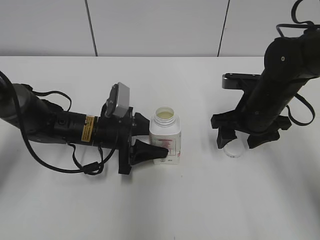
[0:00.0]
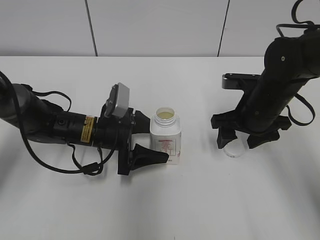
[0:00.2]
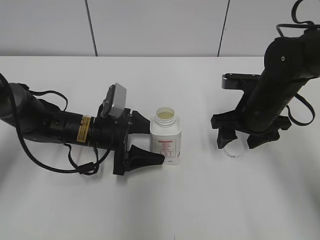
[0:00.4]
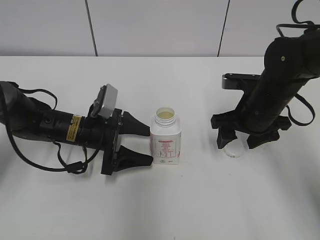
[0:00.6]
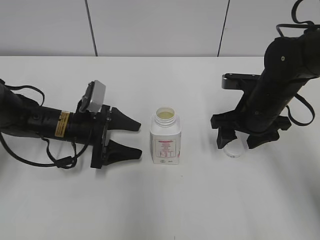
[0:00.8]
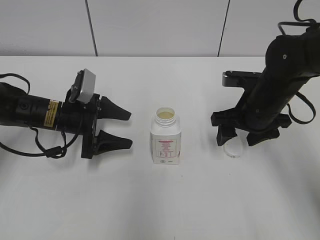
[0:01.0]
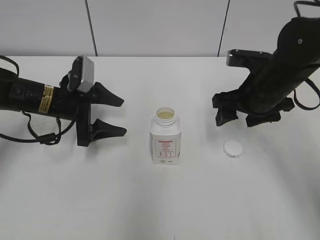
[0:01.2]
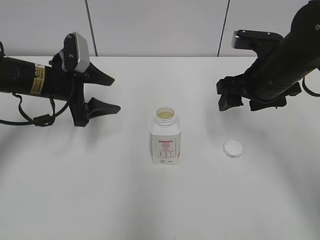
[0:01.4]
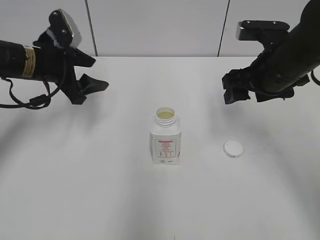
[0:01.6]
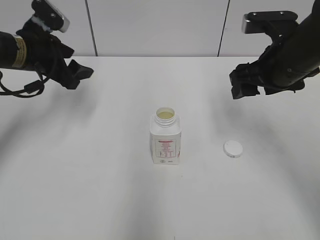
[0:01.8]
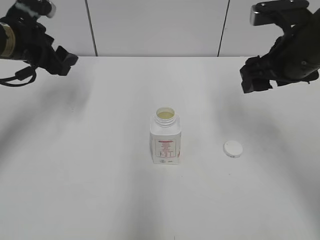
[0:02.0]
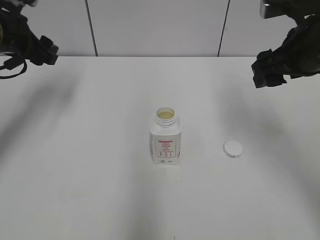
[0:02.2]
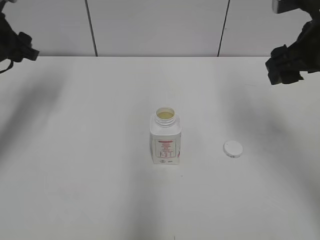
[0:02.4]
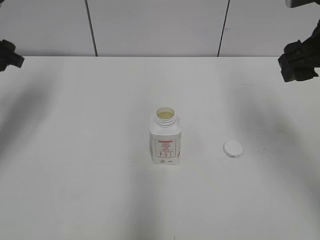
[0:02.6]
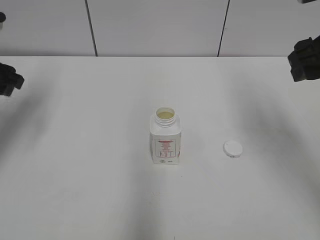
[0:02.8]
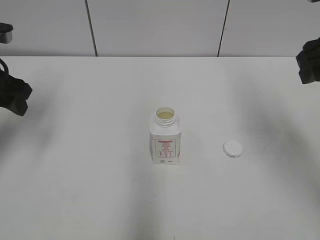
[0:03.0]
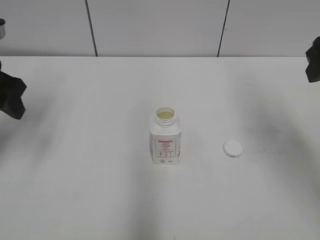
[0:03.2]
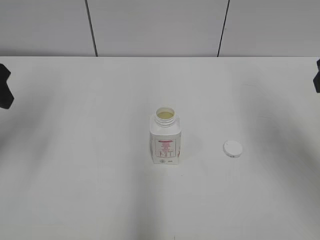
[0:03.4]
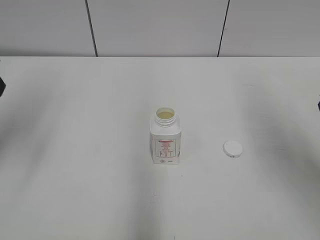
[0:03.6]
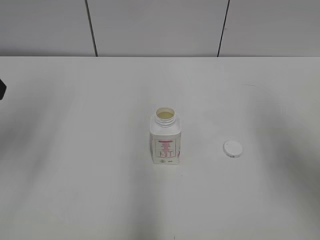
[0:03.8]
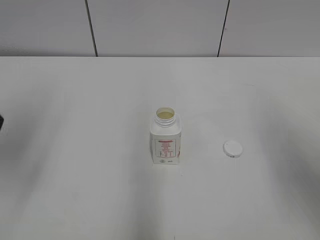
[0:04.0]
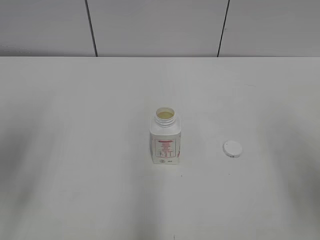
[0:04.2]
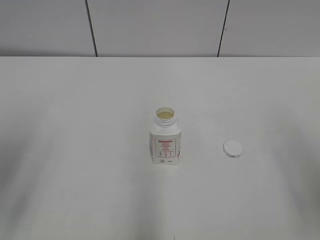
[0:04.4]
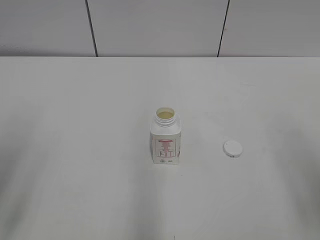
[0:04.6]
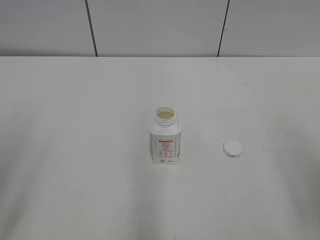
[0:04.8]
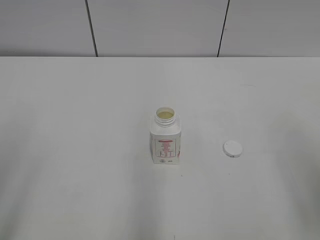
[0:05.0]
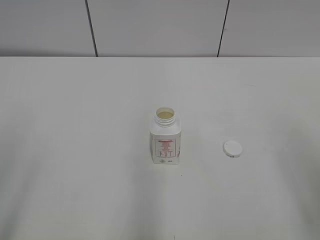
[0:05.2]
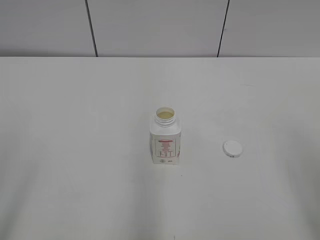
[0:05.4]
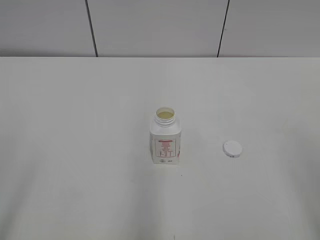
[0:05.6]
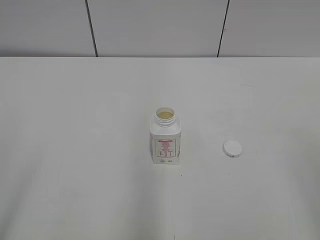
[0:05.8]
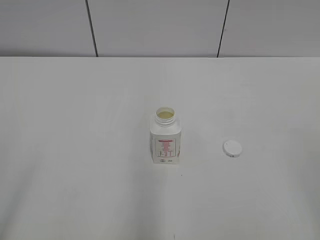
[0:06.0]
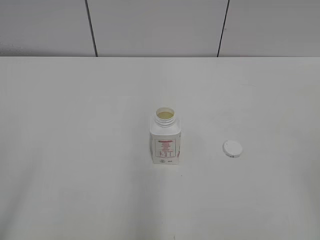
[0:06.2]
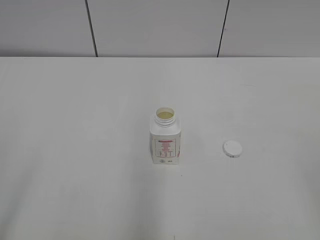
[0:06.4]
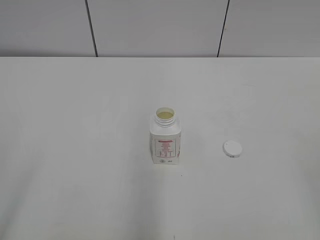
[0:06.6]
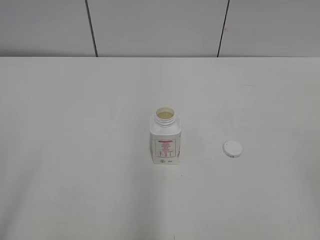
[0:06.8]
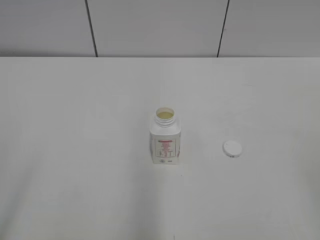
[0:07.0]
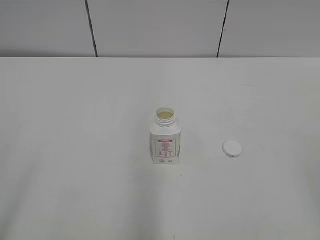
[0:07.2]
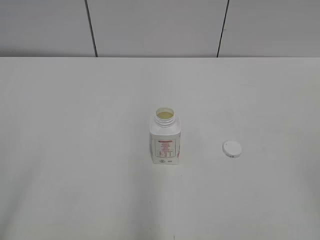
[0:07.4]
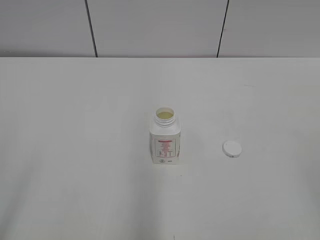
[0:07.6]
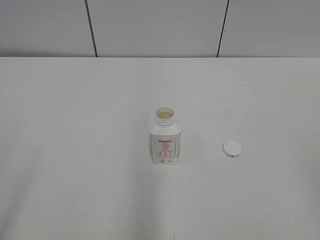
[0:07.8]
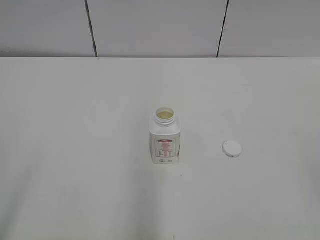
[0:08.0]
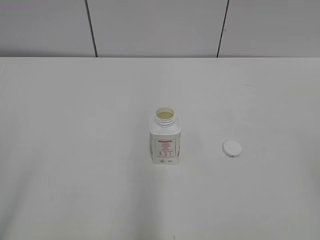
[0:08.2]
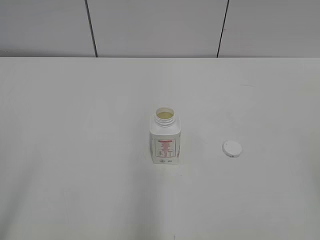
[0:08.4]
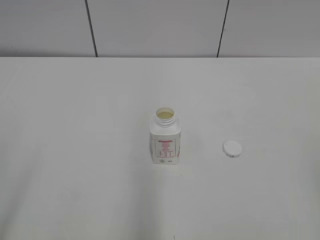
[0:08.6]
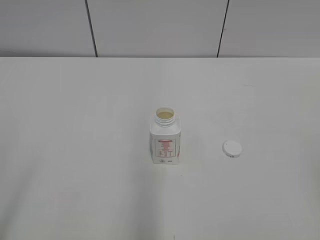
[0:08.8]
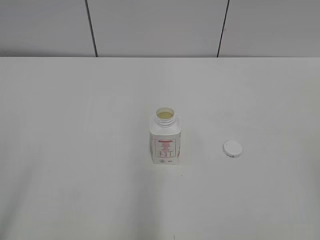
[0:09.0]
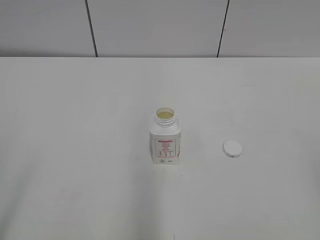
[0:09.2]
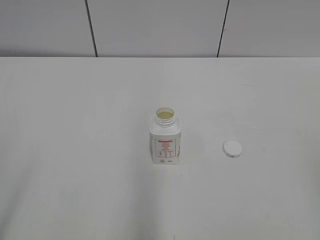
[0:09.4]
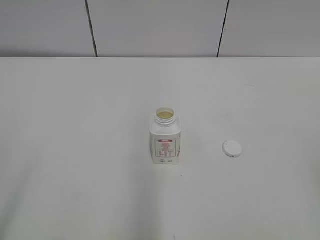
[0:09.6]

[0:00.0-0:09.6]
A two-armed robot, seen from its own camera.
Step, 0:00.0 to 0:00.4: Place the bottle on the table with the left gripper.
0:00.0 to 0:01.6: The left gripper heads upward and to the left, covering about 15 cm. Meanwhile the right gripper is displaced upward by about 10 cm.
0:01.6 to 0:03.2: The right gripper heads upward, backward and to the right, covering some 15 cm, while the left gripper travels backward, upward and to the left by about 15 cm.
0:03.2 to 0:04.8: The two grippers go about 15 cm backward.
0:04.8 to 0:06.4: The right gripper is displaced backward by about 10 cm.

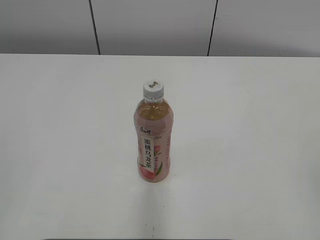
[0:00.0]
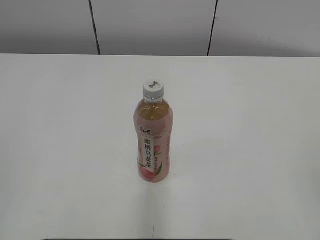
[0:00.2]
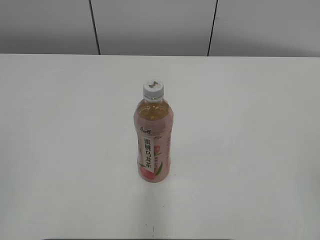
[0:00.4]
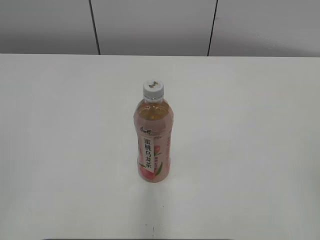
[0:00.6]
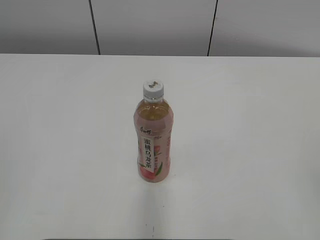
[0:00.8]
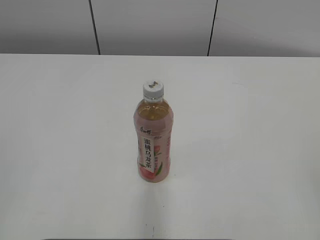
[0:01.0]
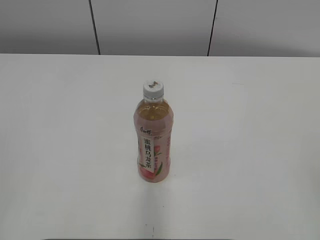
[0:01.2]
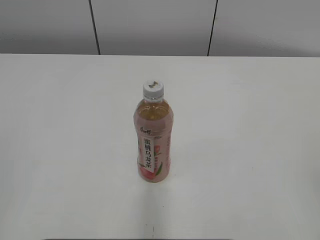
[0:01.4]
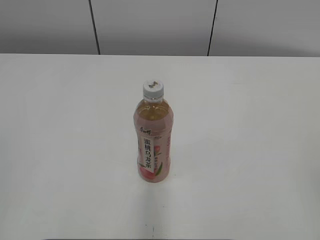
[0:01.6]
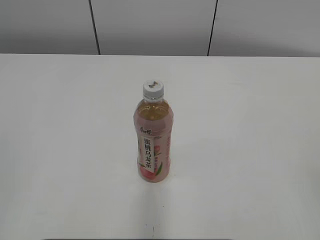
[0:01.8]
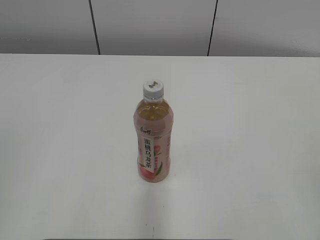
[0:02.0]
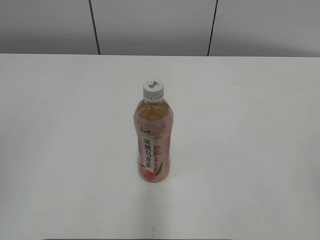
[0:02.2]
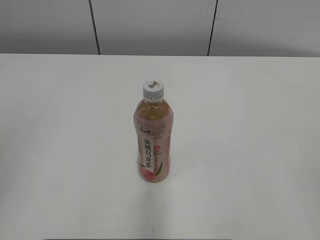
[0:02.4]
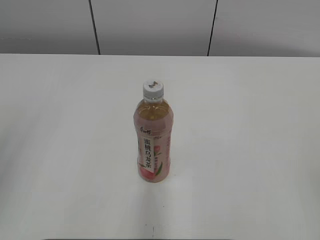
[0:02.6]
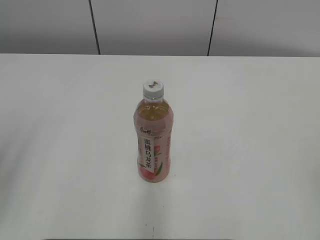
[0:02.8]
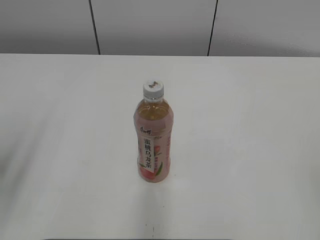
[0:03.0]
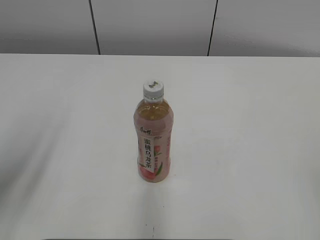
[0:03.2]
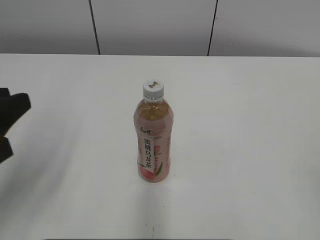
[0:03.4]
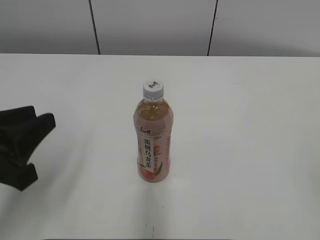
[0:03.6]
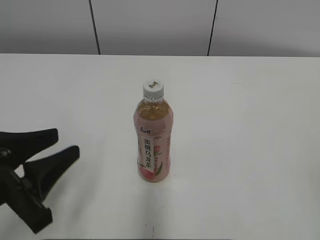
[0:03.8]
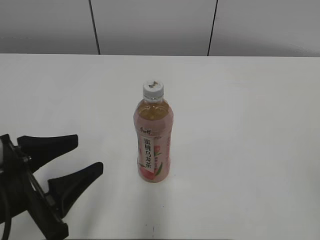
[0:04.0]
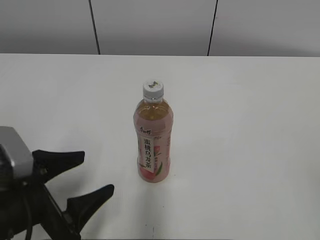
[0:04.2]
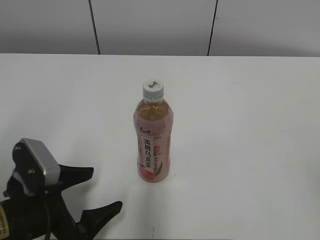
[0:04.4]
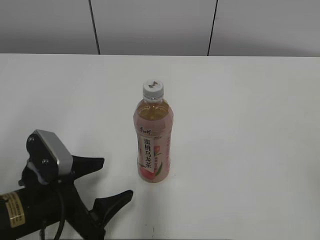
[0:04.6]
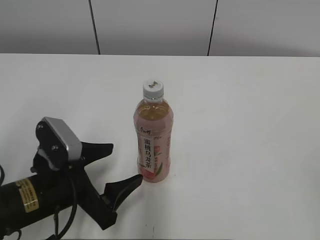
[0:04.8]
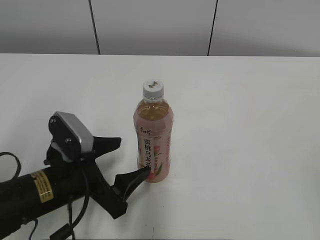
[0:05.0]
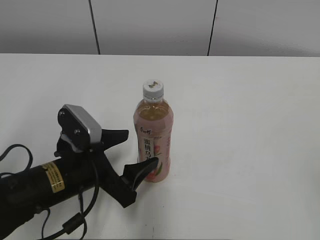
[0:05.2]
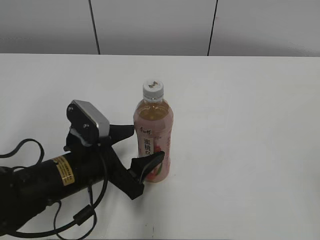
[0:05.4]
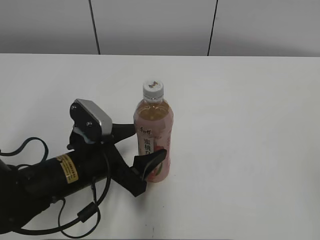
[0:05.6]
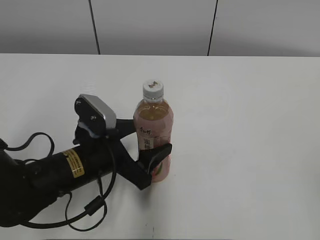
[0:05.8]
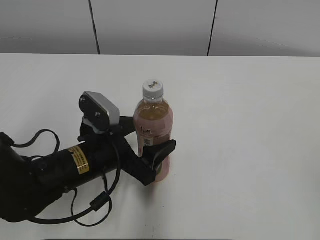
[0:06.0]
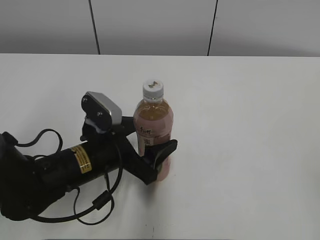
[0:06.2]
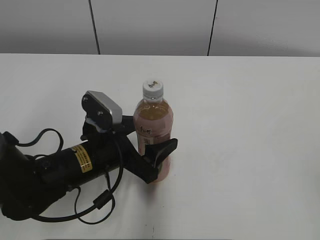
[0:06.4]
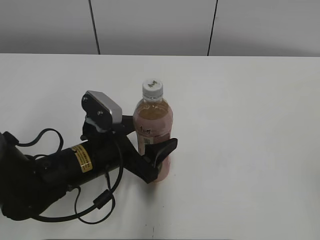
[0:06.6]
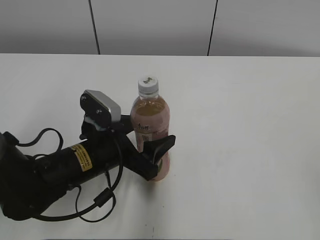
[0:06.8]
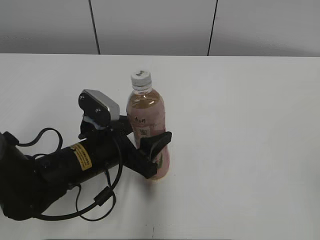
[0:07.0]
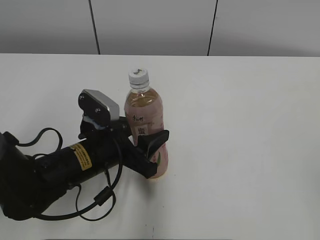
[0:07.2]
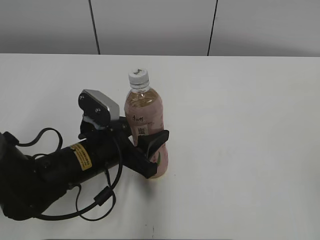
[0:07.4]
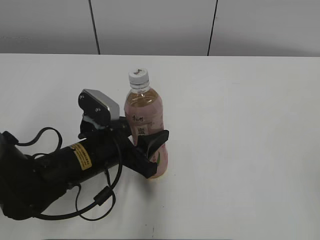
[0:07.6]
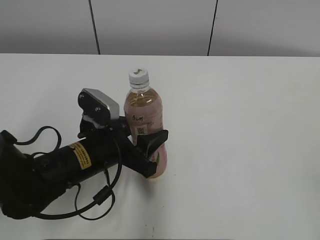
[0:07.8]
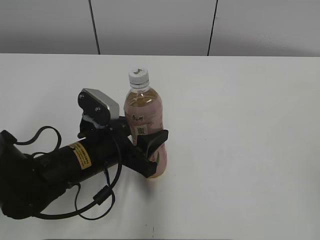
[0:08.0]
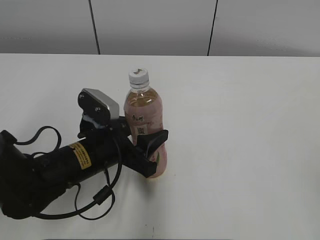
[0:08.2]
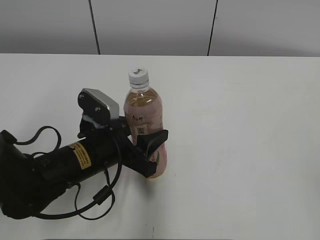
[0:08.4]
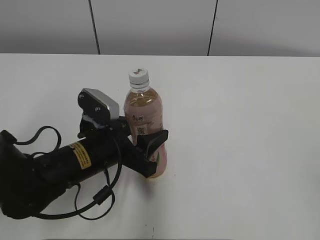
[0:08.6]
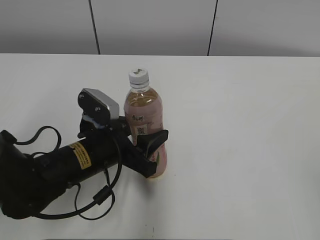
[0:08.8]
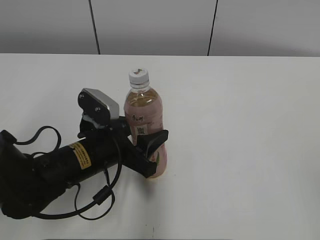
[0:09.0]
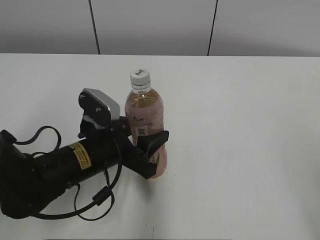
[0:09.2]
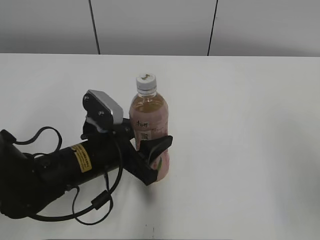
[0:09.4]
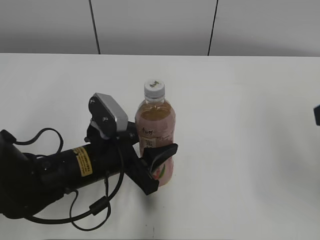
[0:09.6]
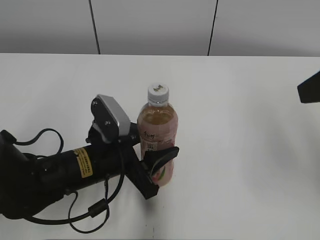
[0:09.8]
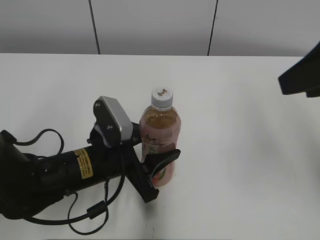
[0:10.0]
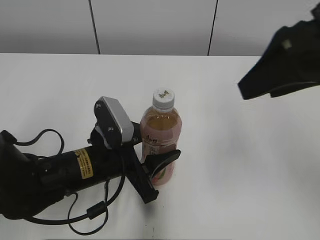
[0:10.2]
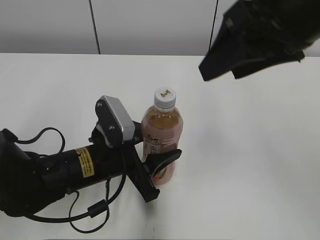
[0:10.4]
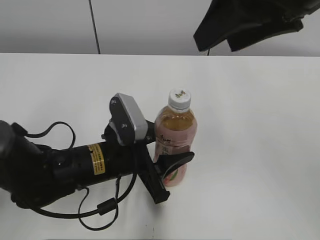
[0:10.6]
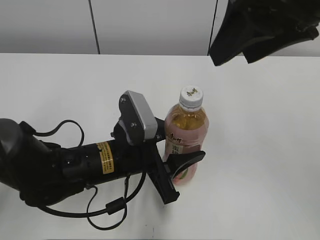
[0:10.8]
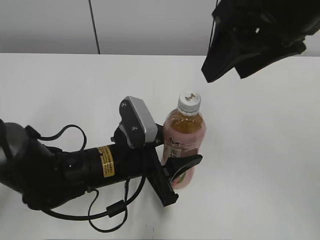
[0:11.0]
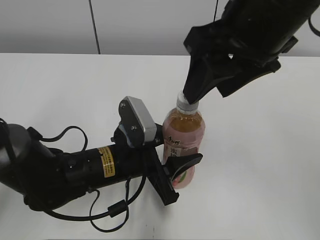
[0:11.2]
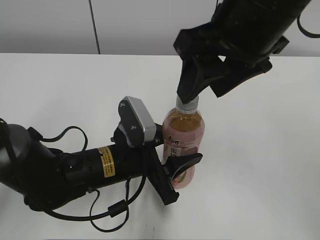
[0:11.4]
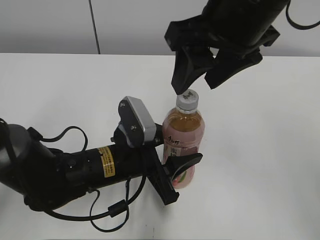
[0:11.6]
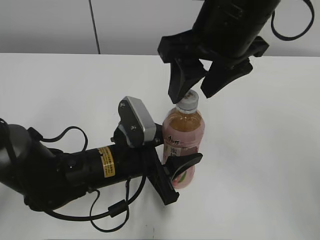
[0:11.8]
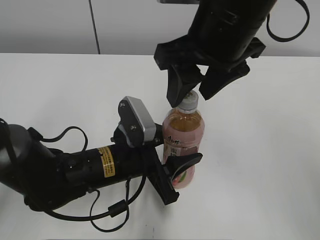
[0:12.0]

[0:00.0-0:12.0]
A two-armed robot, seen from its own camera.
Step, 0:00.0 to 0:07.2: Grab the Peach Oolong Tea with the left hand.
Step, 0:07.6 to 0:12.0: Move the Peach Oolong Tea from left to right.
0:01.6 to 0:03.0: The left gripper moves forward, about 10 cm.
0:03.0 to 0:04.4: The left gripper goes roughly 20 cm downward and to the right, and opens up.
0:04.4 to 0:06.0: The left gripper goes roughly 10 cm forward and to the right.
0:06.0 to 0:07.6: The left gripper closes.
0:07.6 to 0:09.0: Both grippers stay about where they are.
0:09.0 to 0:10.4: The right gripper shifts approximately 30 cm forward and to the left.
0:10.4 to 0:12.0: The right gripper shifts roughly 5 cm to the left.

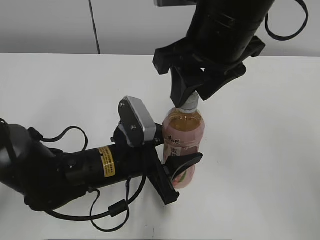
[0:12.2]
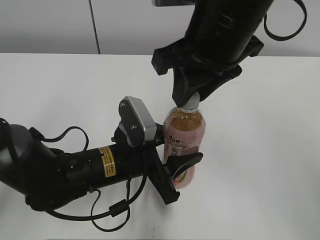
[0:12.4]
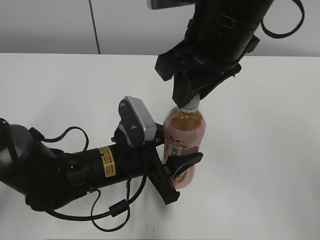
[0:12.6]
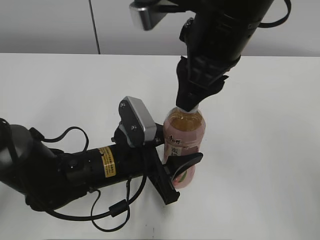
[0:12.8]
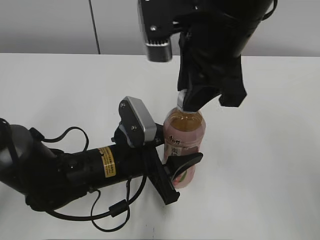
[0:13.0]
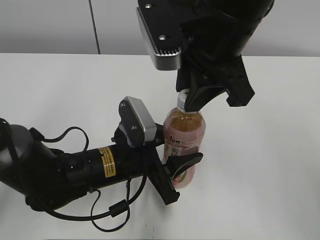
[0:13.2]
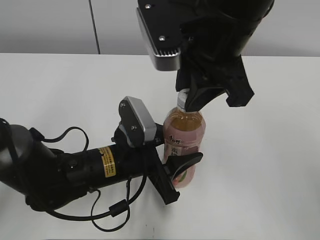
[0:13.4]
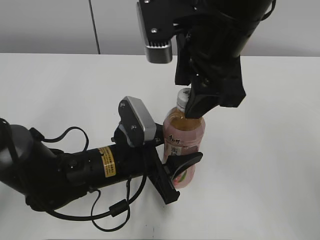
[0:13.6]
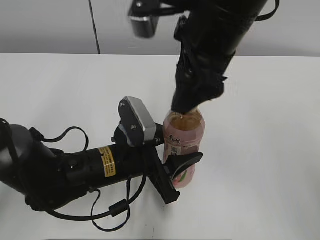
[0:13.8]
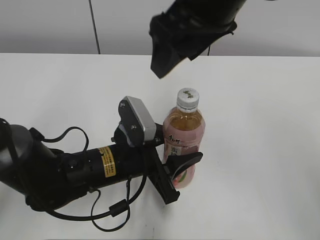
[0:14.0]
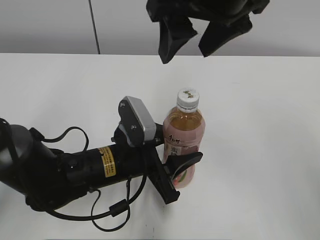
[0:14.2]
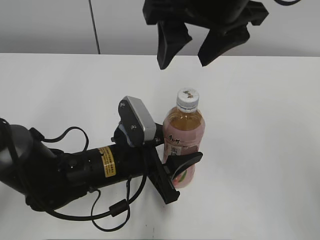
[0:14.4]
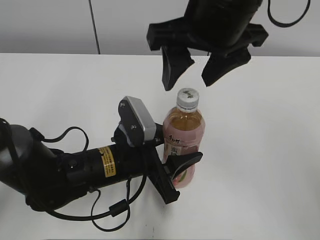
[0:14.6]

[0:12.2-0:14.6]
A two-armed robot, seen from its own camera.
0:12.2 to 0:13.4: The right gripper closes up.
0:13.4 to 0:14.6: The right gripper opens.
